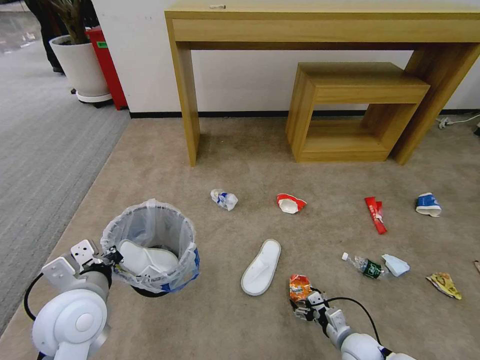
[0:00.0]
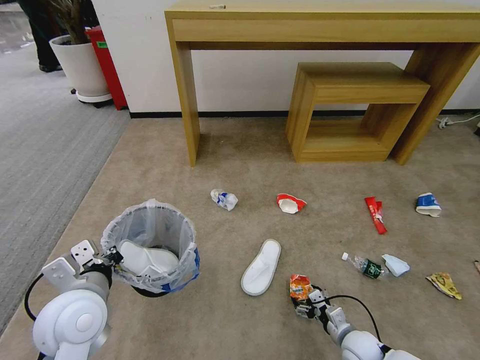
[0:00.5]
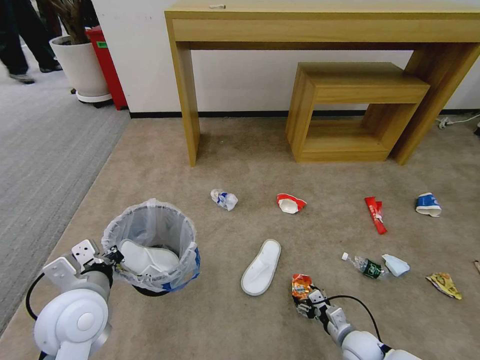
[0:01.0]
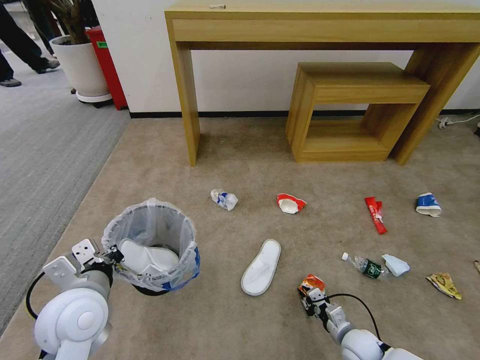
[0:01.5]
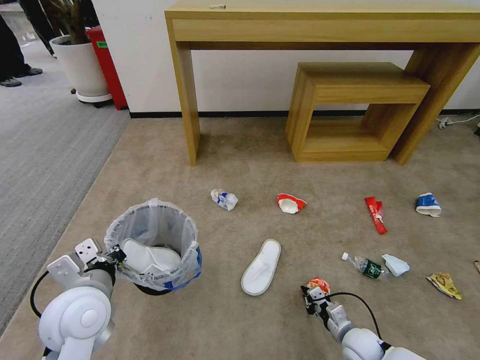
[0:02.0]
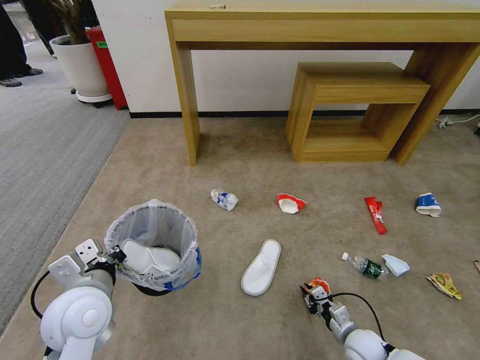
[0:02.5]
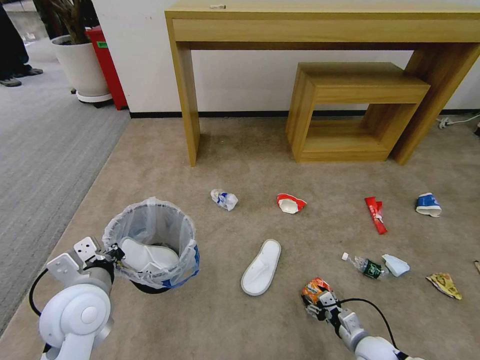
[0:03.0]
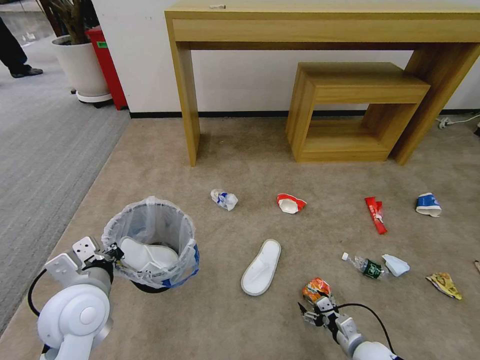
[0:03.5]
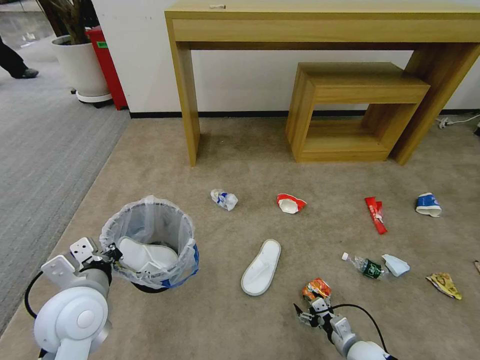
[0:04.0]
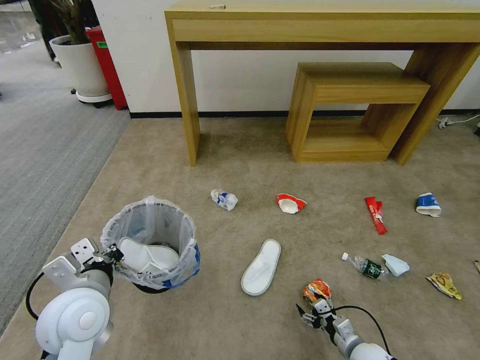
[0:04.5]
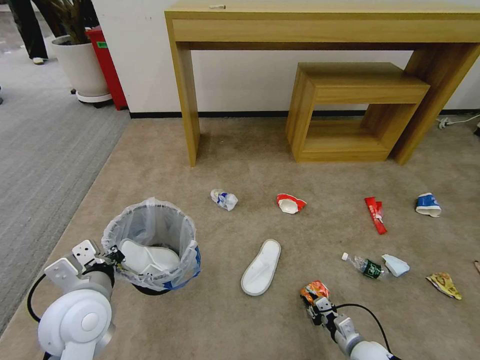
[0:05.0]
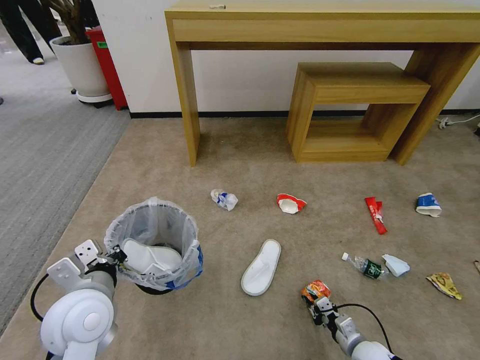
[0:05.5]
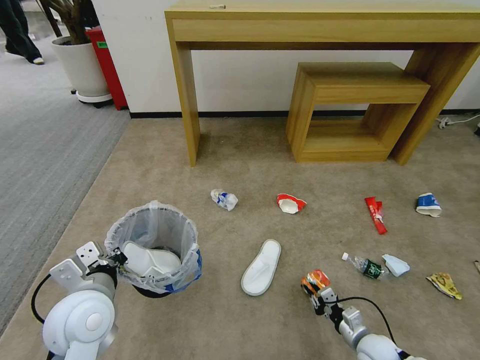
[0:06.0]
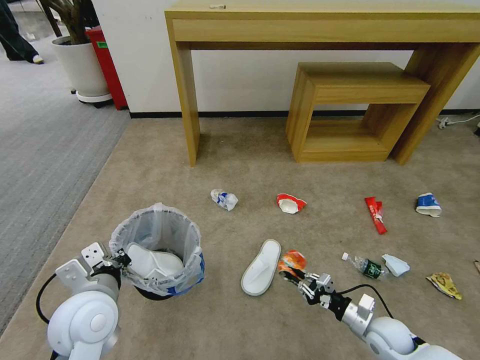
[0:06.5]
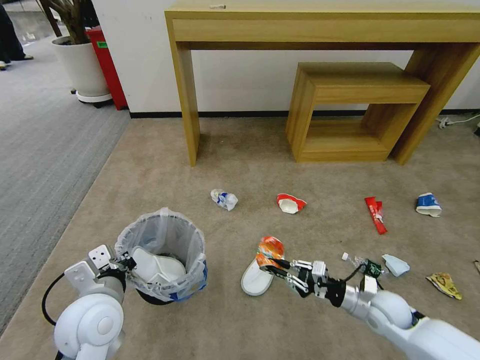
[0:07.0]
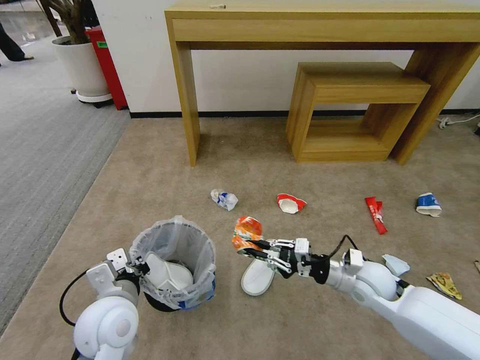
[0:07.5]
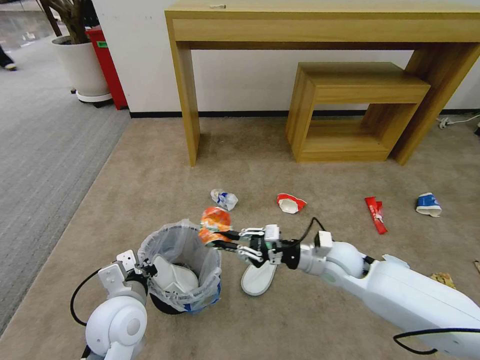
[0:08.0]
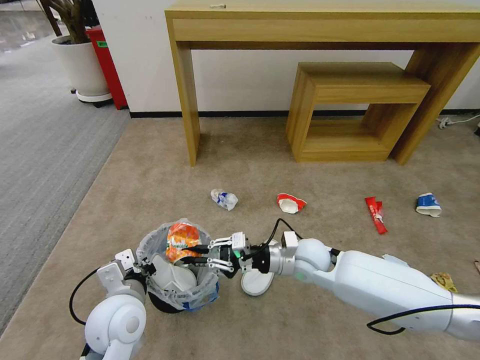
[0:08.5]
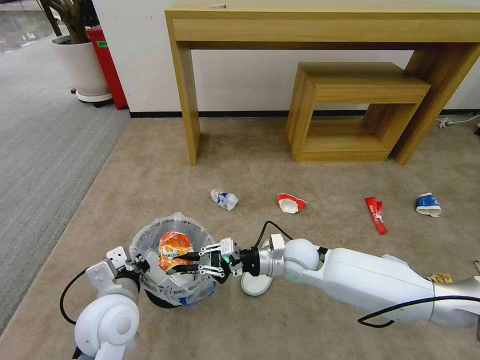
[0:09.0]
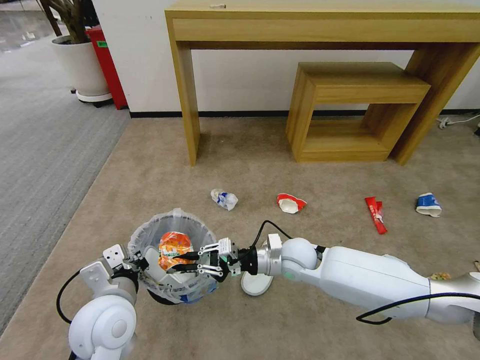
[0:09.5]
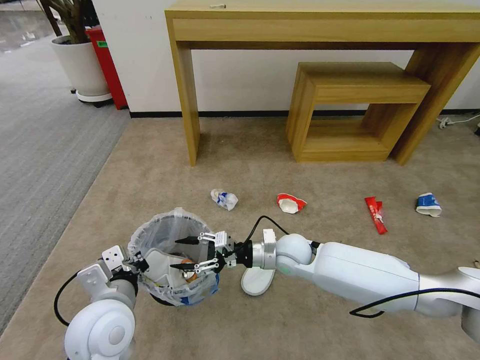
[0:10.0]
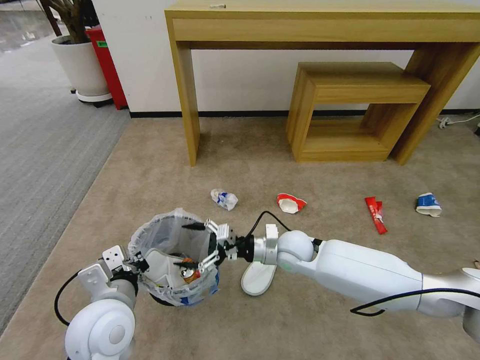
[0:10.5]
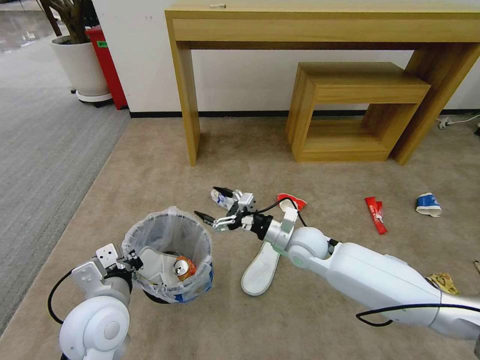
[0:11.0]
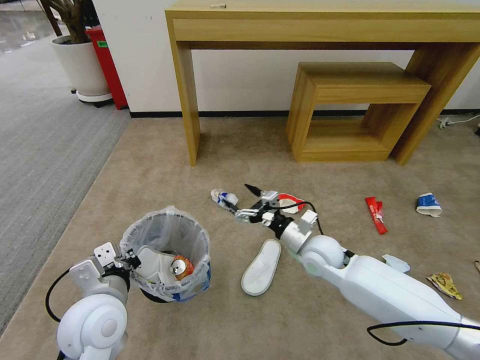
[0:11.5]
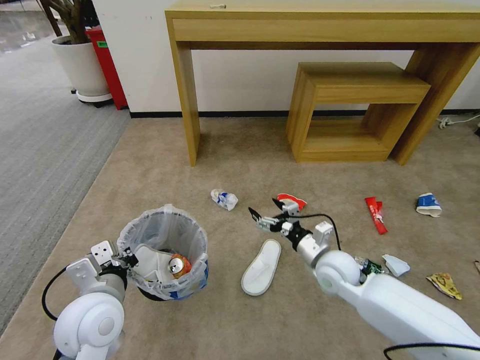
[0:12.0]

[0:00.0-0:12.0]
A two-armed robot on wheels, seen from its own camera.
Task of the whole recording: Pick up the trash bin and place the garbage on the floor into it.
0:00.0 to 0:02.0: The right gripper closes its fingers.
0:02.0 to 0:04.0: The right gripper opens up.
0:04.0 to 0:06.0: The right gripper closes up.
0:06.0 to 0:08.0: The right gripper heads upward, forward and to the left, covering roughly 30 cm. The left gripper ends up about 5 cm from where it was.
0:08.0 to 0:10.0: The right gripper travels to the left by approximately 10 cm, and opens its fingers.
0:10.0 to 0:12.0: The right gripper goes approximately 10 cm to the right, and opens its fingers.

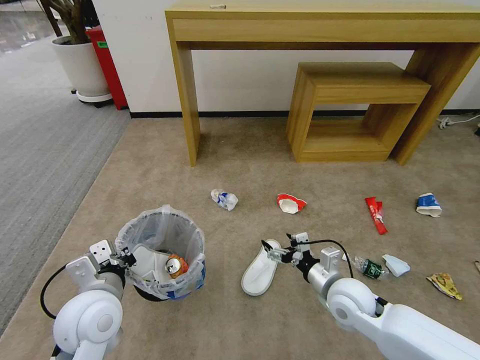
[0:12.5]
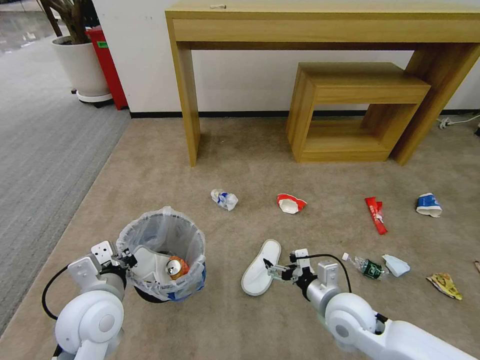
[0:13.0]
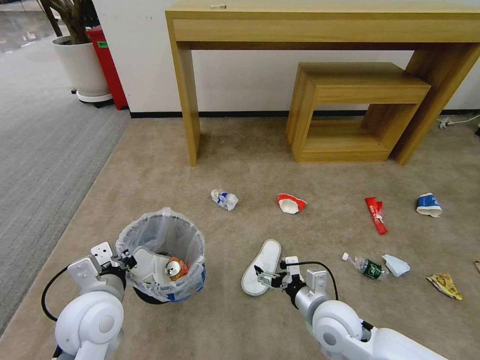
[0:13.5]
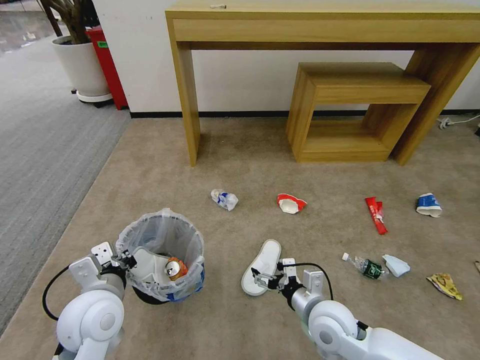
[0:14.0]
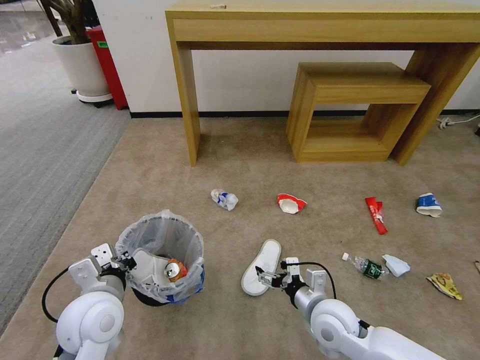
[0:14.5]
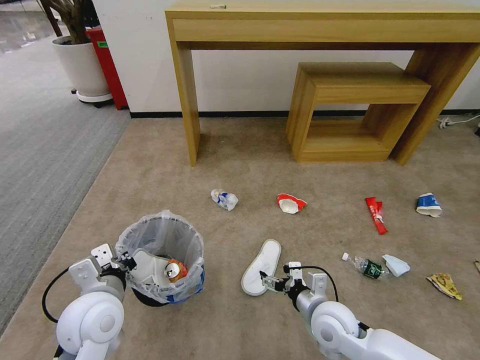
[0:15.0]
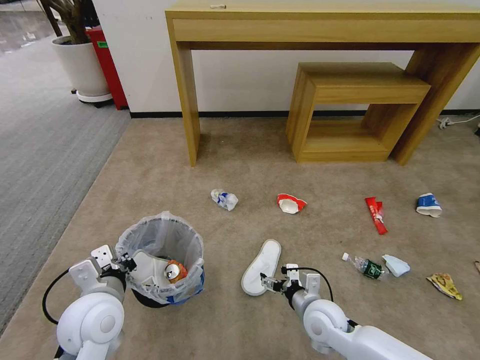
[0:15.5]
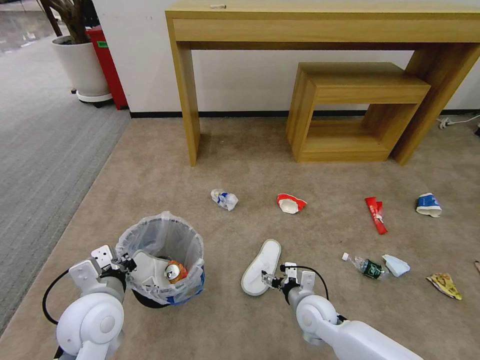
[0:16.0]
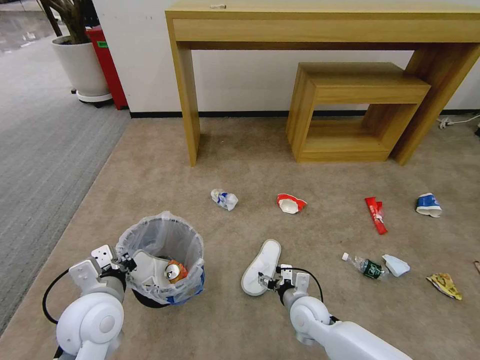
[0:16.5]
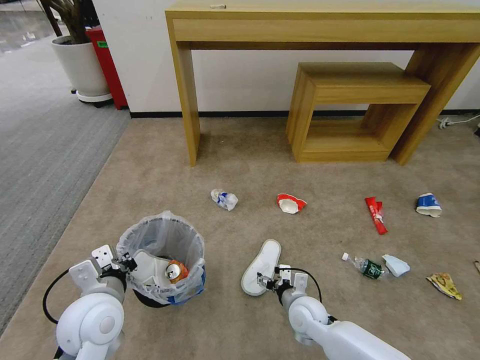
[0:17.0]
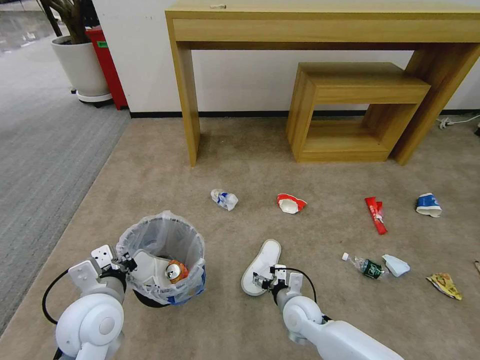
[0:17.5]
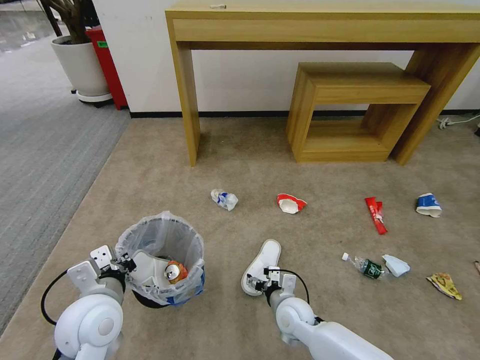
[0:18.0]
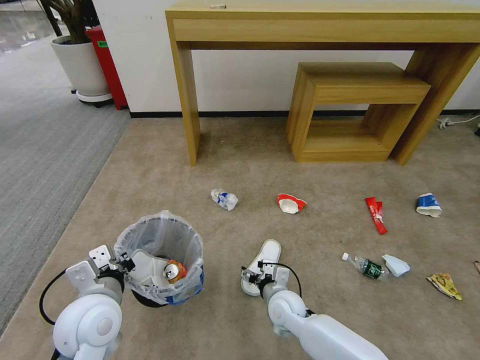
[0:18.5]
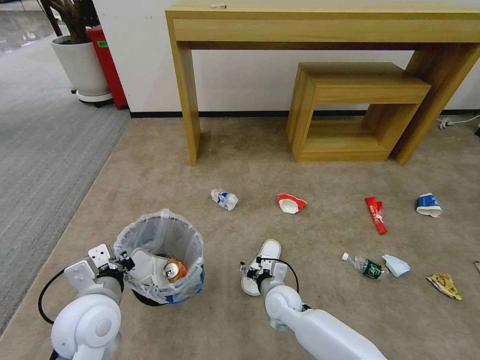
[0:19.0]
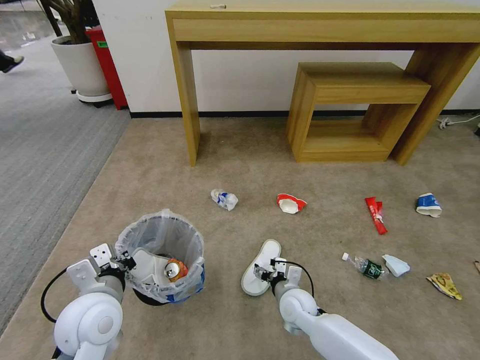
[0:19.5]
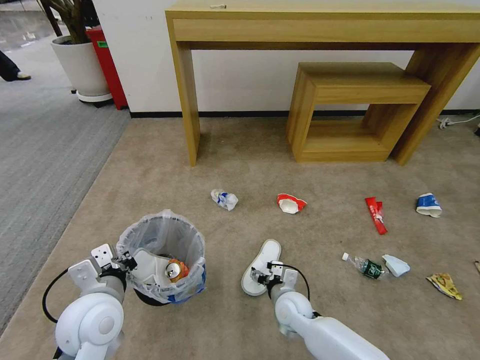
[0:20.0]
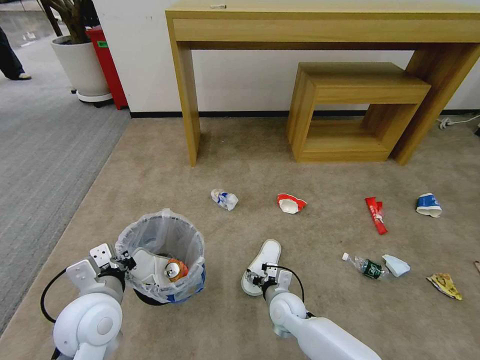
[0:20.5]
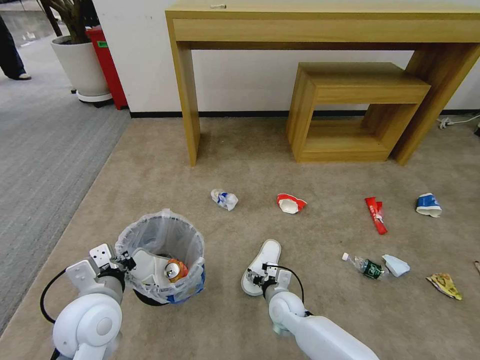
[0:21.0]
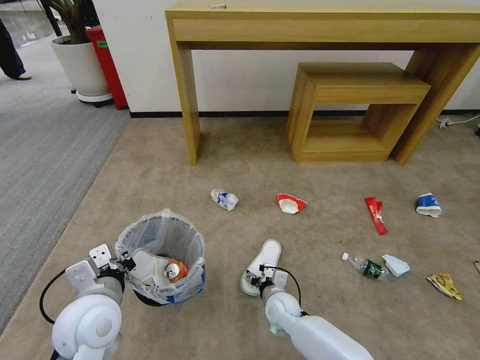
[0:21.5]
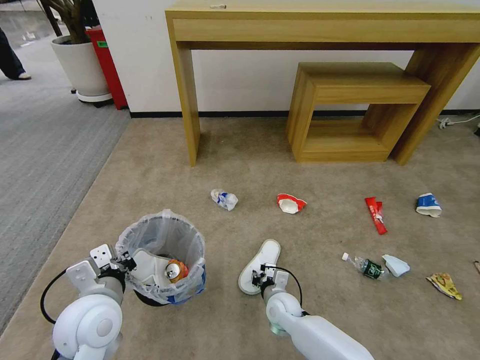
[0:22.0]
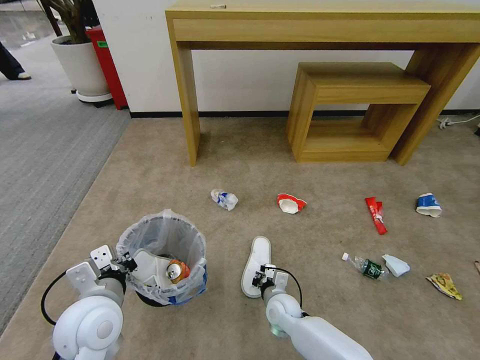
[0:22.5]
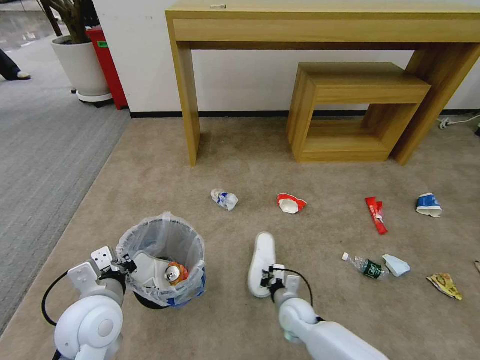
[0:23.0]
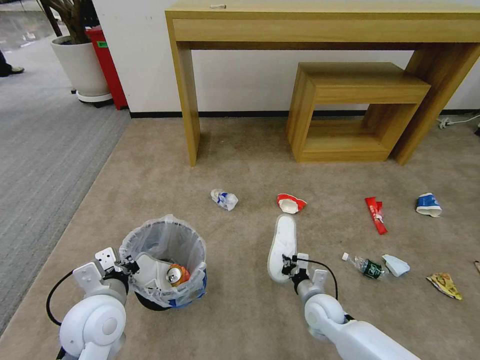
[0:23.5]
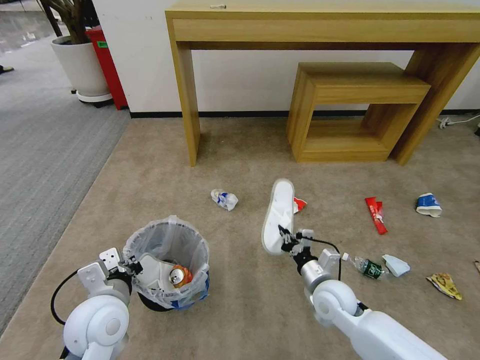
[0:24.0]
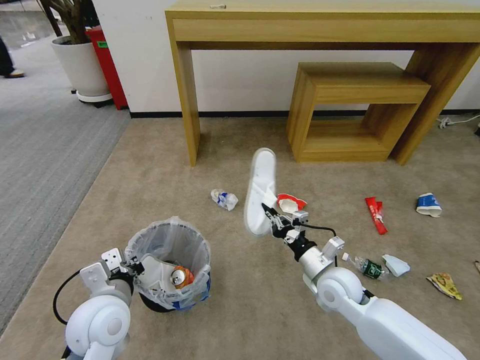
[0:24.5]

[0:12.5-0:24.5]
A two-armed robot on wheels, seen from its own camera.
Task of the whole recording: Pick up the trash bin and place the garbage on the floor into it.
0:12.5 to 0:14.5: The right gripper moves some 5 cm.
0:14.5 to 0:16.5: The right gripper goes roughly 10 cm downward.
0:16.5 to 0:18.5: The right gripper travels to the left by some 5 cm.
0:18.5 to 0:20.5: The grippers move only a little.
0:20.5 to 0:22.5: The right gripper closes.
0:22.5 to 0:24.5: The right gripper goes about 20 cm upward and to the right.

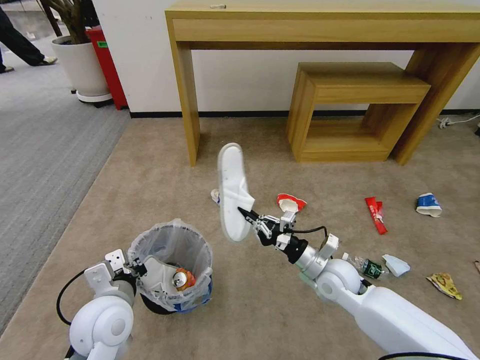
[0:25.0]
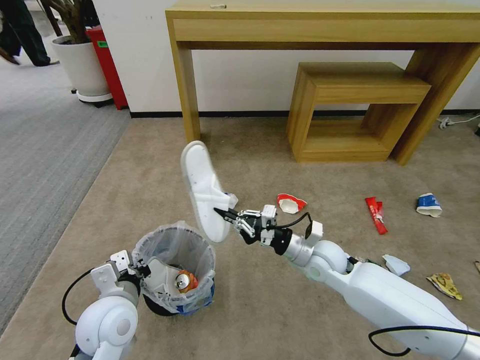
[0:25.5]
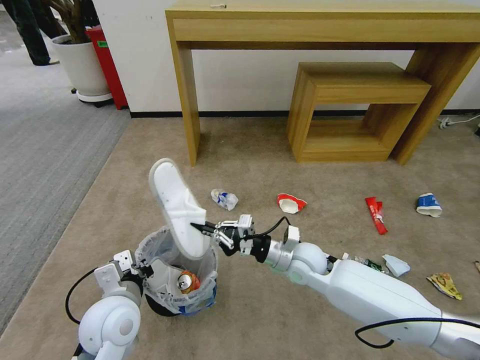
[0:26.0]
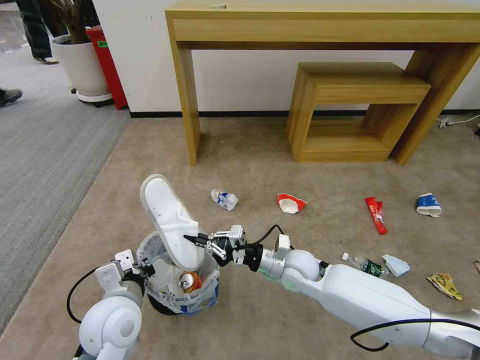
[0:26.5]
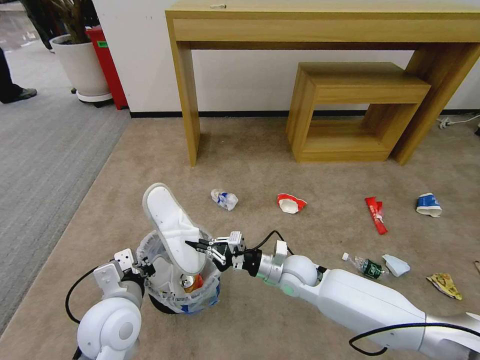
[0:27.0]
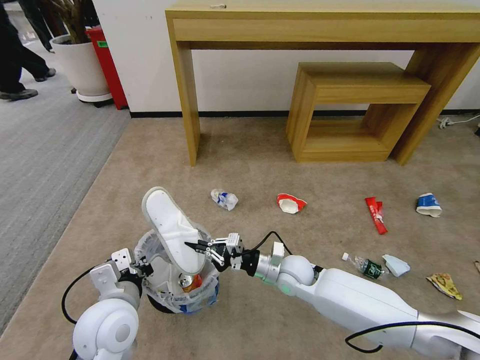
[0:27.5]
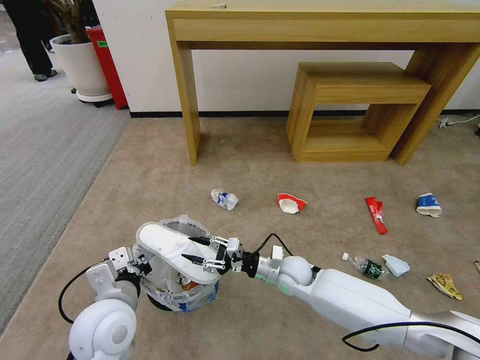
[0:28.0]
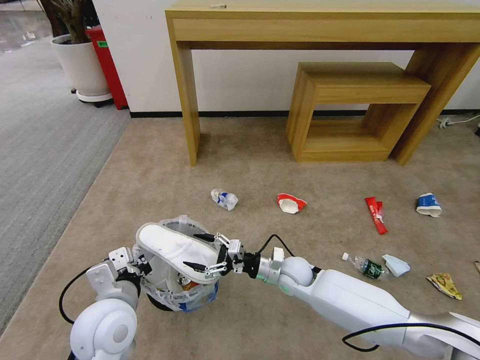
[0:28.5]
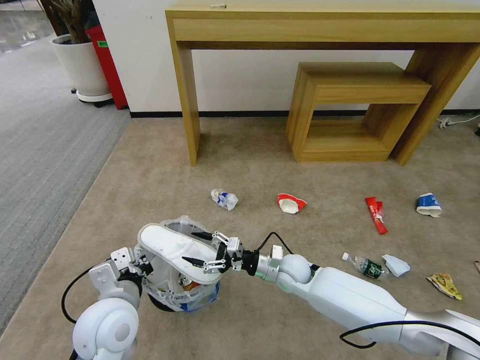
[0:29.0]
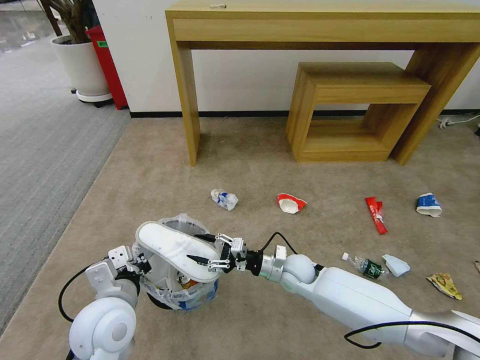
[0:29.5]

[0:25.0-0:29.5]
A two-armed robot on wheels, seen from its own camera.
Task of the whole recording: Pick up the trash bin and place the garbage on the floor into it.
0:25.0 to 0:27.0: The right gripper shifts approximately 10 cm to the left.
0:27.0 to 0:29.5: The right gripper opens.
